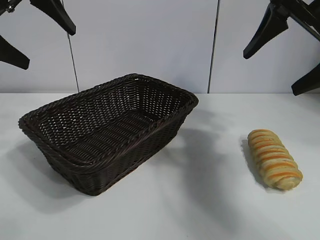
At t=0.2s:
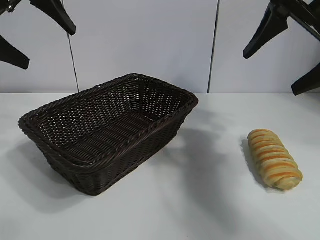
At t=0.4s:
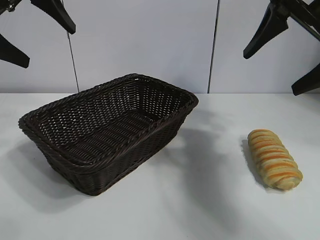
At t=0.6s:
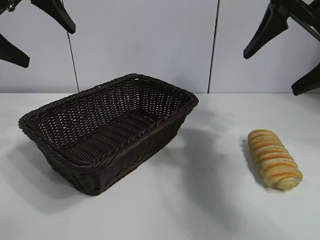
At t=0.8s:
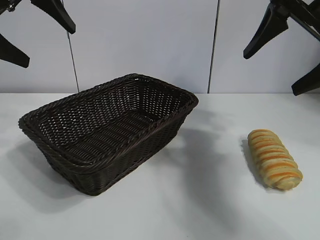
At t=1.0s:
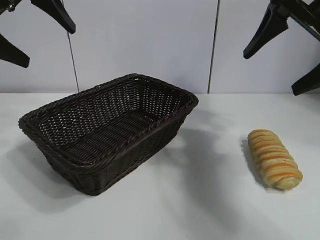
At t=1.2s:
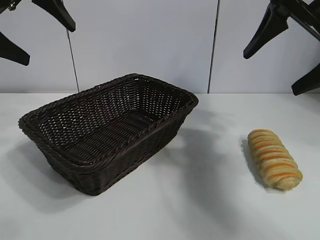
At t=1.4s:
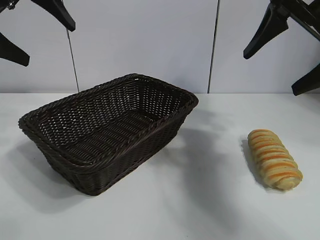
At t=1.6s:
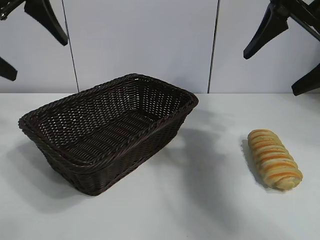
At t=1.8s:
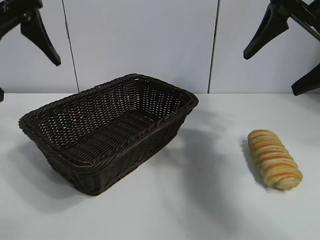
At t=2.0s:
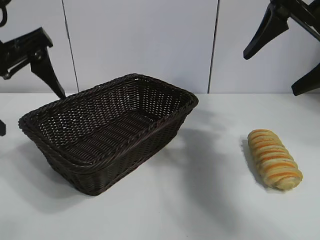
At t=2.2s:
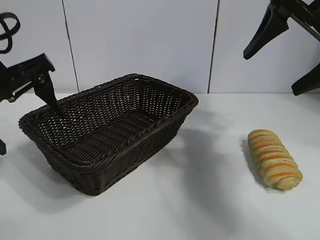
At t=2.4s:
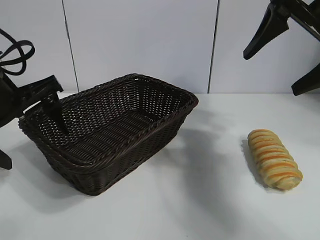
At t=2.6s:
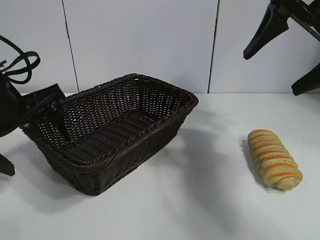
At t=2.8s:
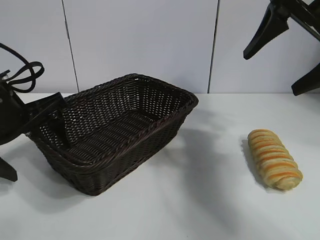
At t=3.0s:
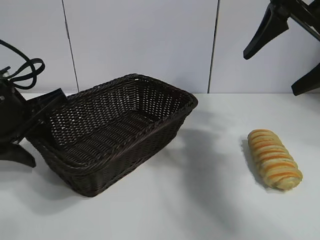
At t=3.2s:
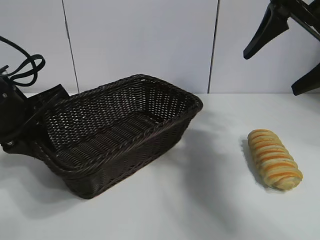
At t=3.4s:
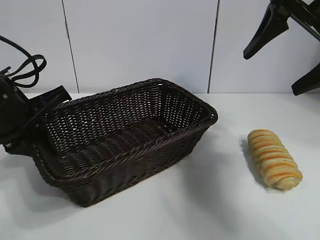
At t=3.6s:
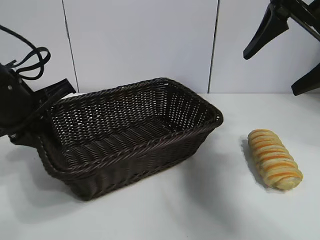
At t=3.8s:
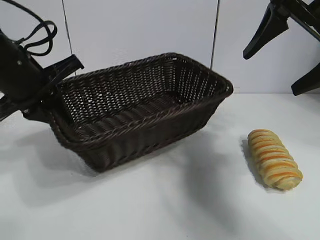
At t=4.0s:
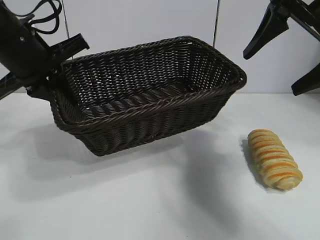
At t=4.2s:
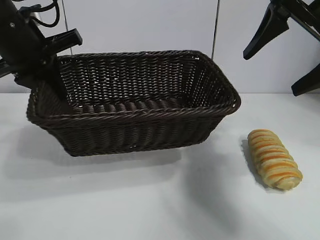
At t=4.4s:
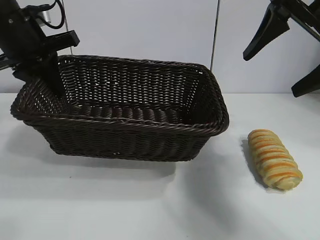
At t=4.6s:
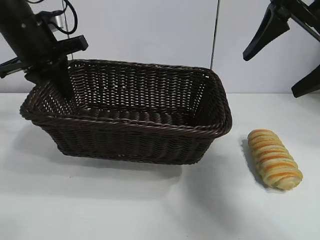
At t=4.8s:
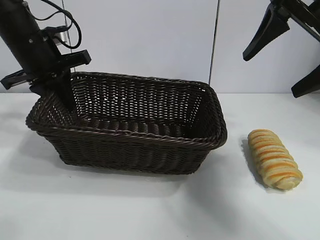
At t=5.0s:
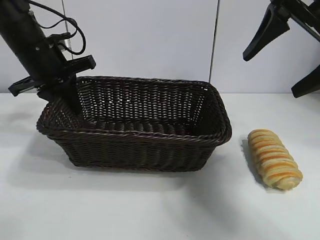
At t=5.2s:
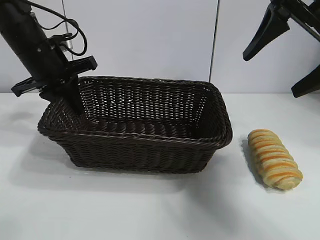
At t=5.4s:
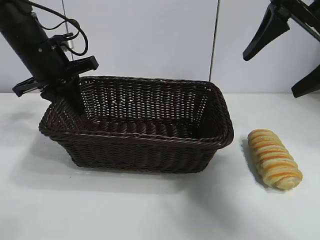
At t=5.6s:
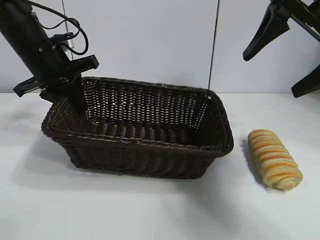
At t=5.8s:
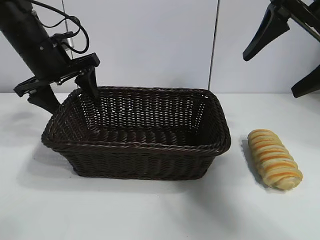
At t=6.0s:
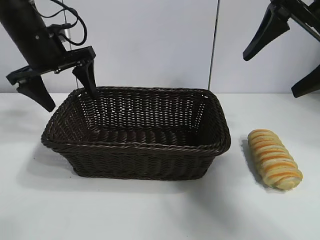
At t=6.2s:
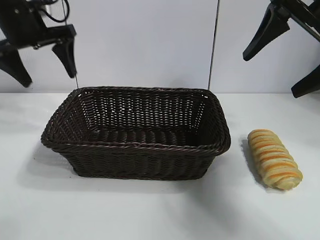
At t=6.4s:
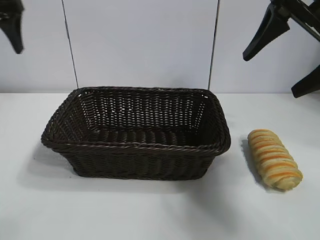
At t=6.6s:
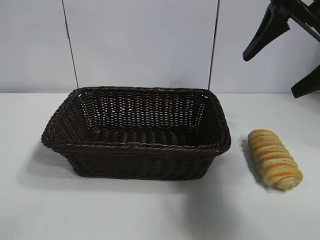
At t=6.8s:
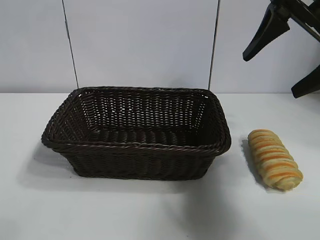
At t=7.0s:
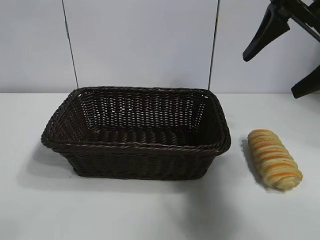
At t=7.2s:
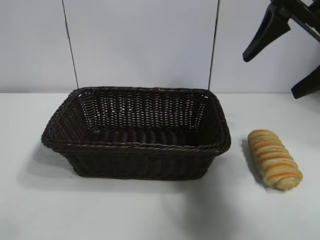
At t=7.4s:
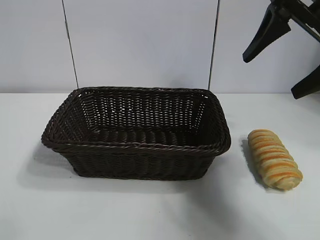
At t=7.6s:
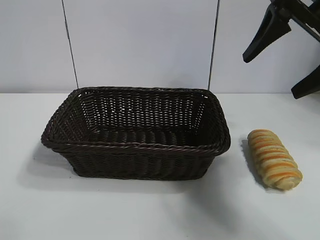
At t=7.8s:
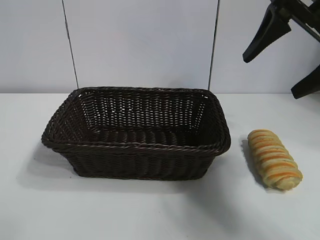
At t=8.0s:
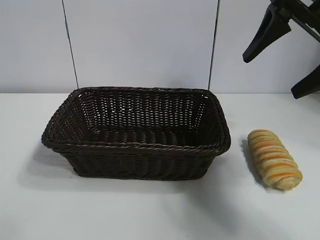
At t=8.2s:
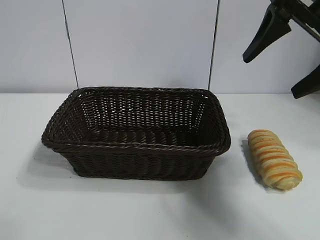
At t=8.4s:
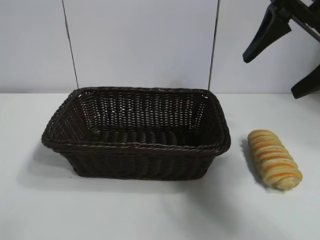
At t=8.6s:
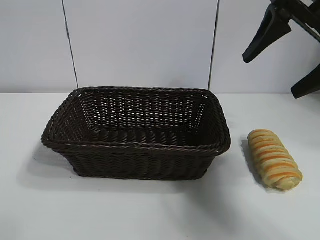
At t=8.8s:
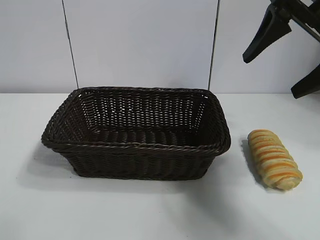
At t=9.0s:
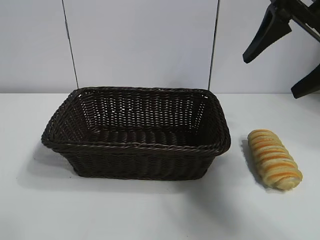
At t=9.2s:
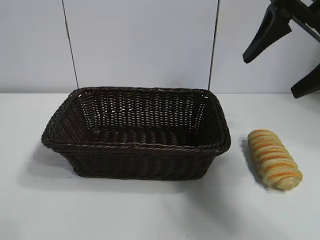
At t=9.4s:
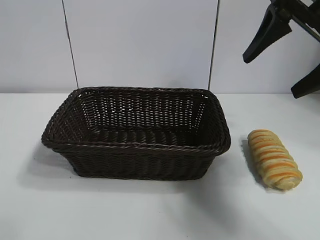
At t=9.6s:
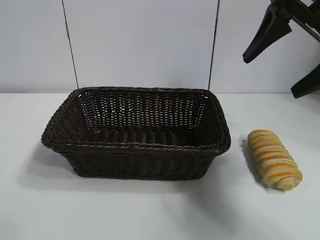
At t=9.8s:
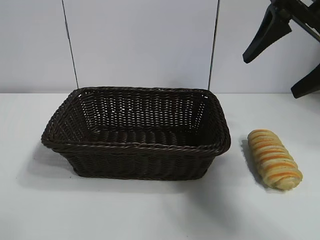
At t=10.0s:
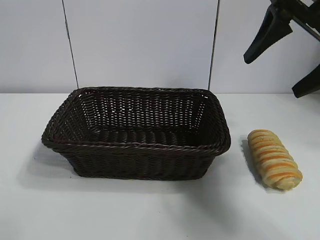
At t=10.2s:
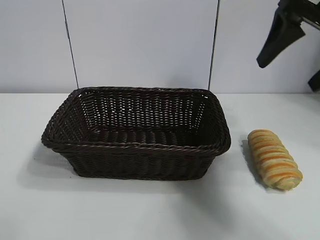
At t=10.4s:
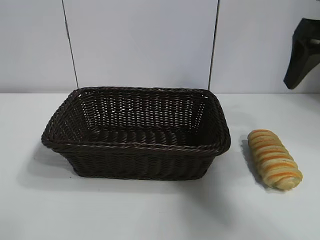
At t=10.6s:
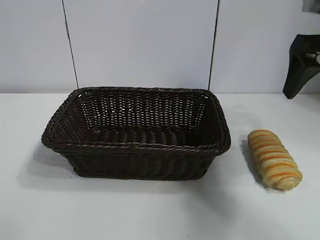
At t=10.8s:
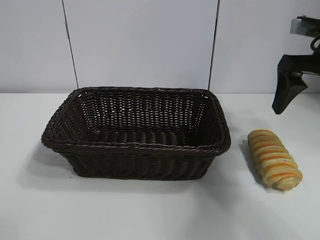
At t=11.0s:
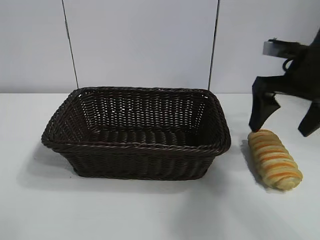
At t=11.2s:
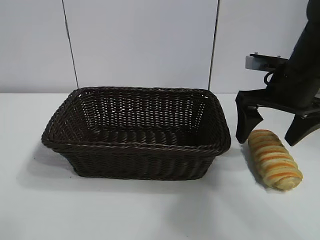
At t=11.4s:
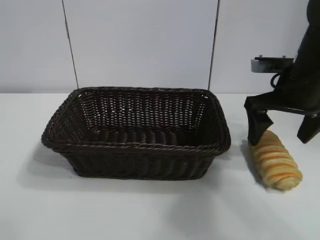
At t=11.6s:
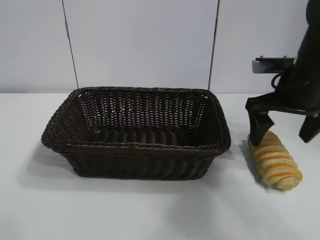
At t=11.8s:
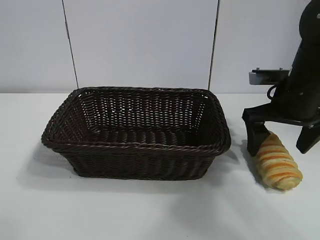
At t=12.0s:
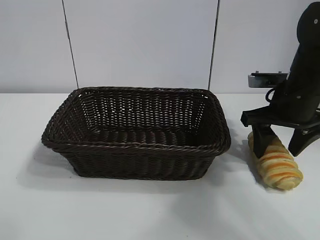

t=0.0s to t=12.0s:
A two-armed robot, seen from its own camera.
Task of the whole recording: pick up the long bread and put it into the basket.
Step, t=1.4s to t=3.2s: Grasp the basket with the left gripper.
Step, t=3.4s to t=5.8s: Place the basket in the center of the table with the left gripper.

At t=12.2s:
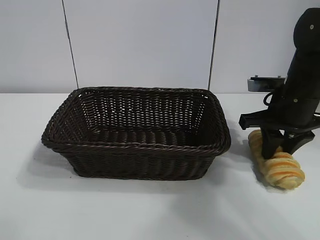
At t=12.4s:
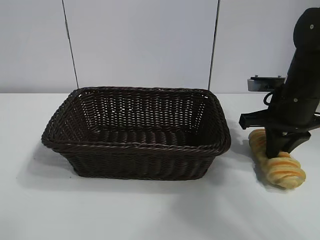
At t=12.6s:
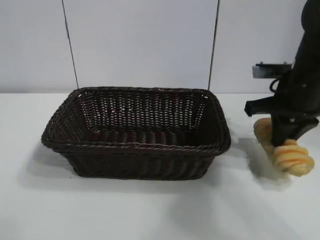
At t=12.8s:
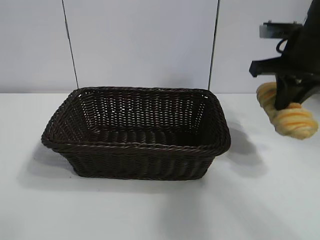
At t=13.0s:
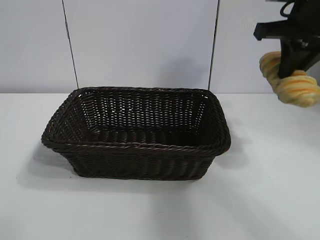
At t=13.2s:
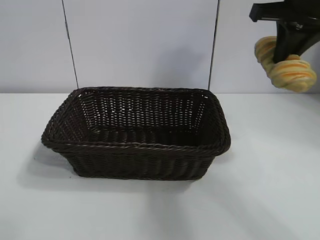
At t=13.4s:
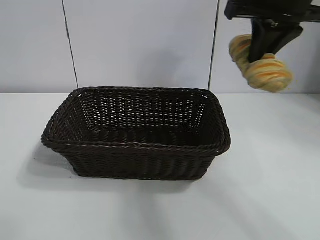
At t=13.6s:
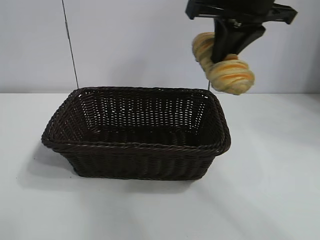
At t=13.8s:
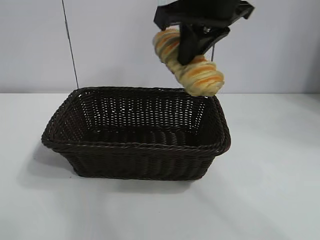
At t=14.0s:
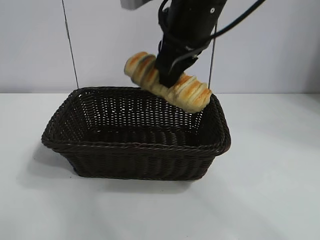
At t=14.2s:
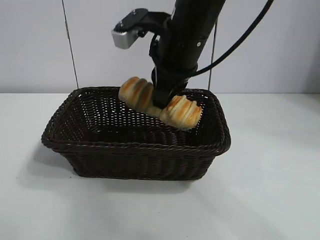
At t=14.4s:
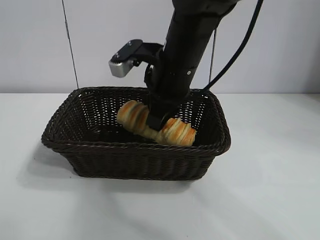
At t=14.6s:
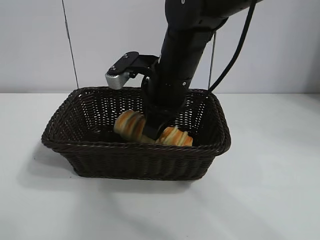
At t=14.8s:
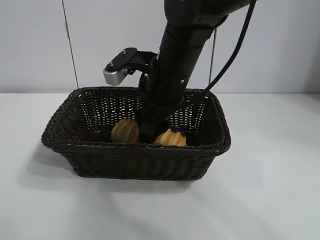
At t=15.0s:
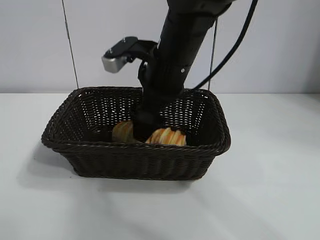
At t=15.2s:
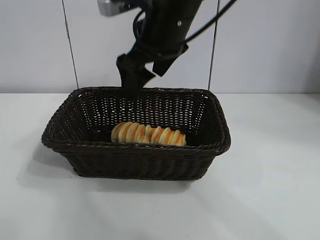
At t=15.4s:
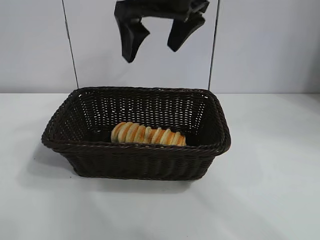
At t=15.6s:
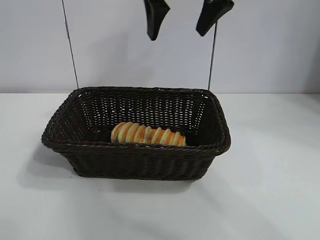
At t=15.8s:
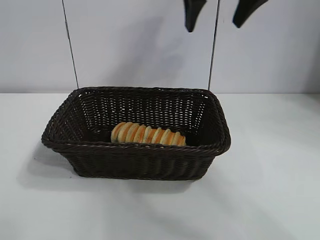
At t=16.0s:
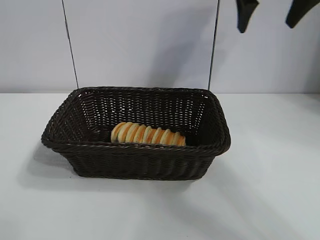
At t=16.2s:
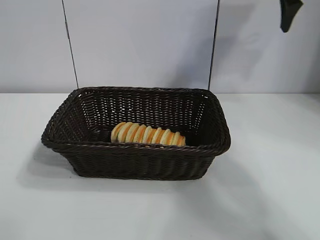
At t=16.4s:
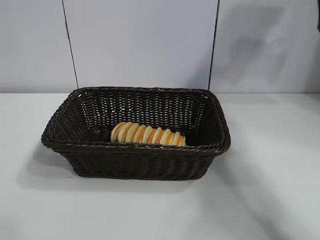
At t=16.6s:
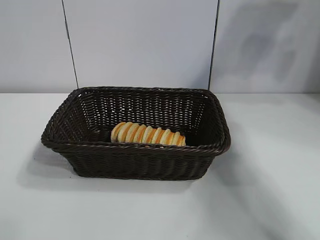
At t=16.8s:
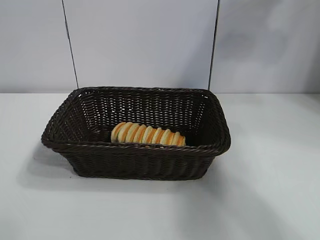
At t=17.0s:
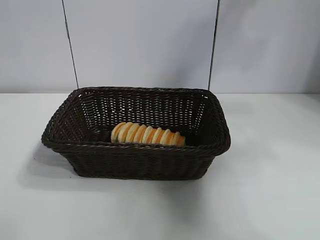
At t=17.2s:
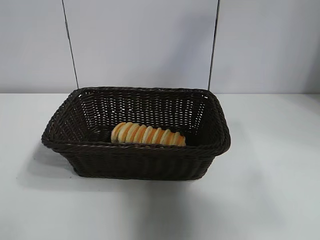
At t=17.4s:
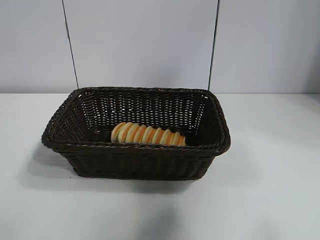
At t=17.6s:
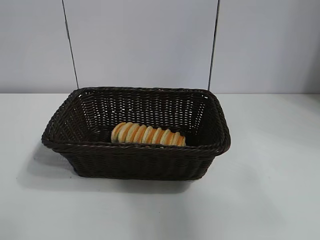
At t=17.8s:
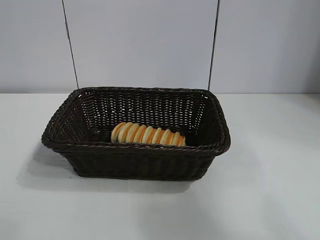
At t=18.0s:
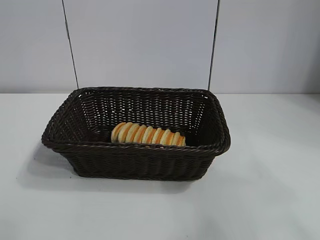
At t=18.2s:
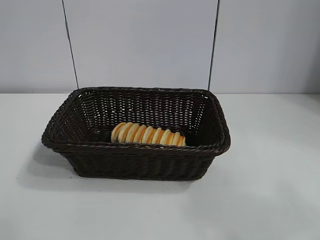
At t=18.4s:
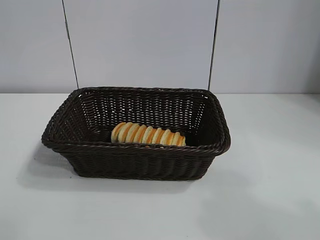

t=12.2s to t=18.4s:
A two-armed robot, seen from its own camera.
Task of the whole recording: pick up the long bread and put it into the basket.
Step, t=12.6s to t=15.0s: Place the long bread in the basket with right gripper.
